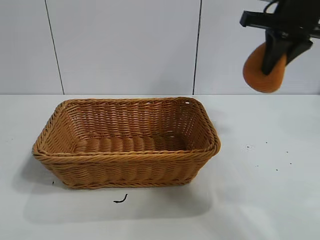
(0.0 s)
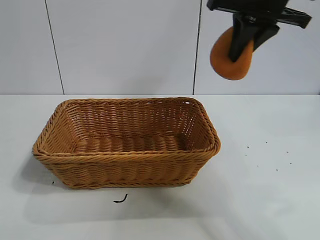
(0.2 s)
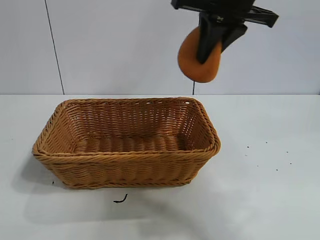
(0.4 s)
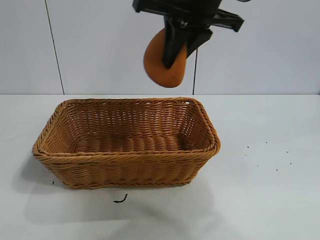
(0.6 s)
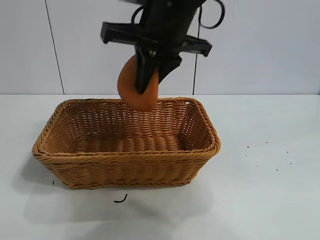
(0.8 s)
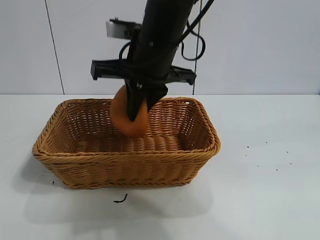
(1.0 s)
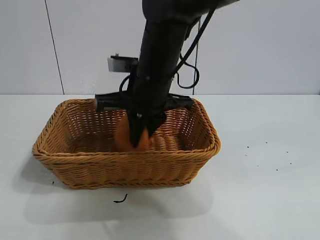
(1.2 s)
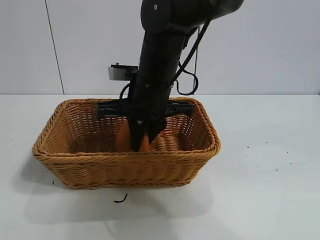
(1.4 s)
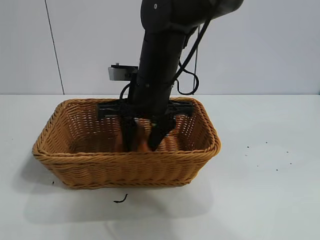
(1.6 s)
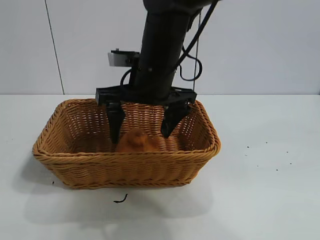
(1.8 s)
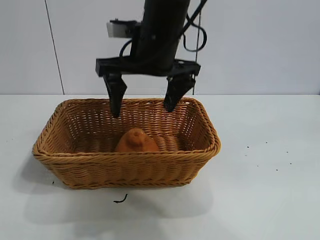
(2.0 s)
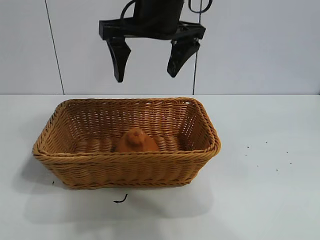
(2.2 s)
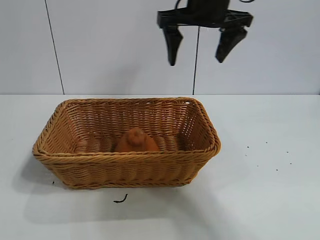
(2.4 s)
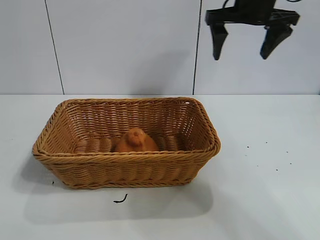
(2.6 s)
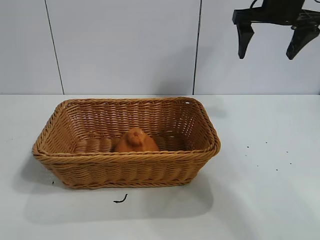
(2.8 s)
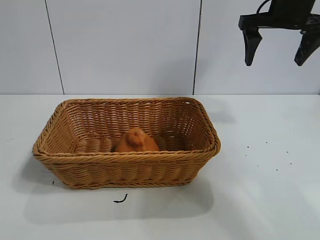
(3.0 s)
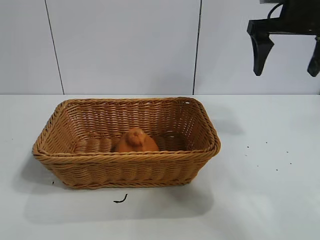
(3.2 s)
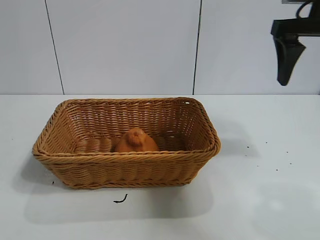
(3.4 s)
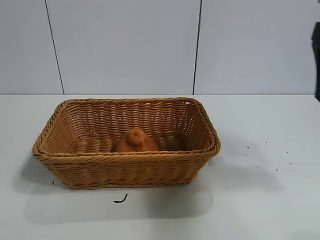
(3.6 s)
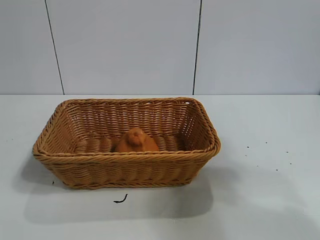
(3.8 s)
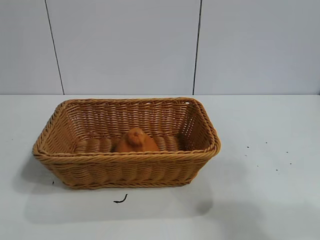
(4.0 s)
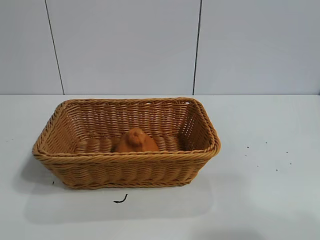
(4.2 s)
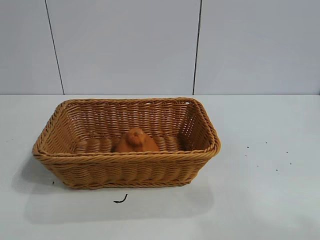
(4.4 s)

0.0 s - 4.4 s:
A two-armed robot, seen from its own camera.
Task of the whole recording: pick up the orange and put it into the basket.
Step, 0.0 s - 1.8 s: Place the orange in the basket with right gripper.
